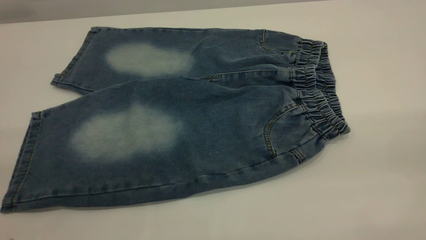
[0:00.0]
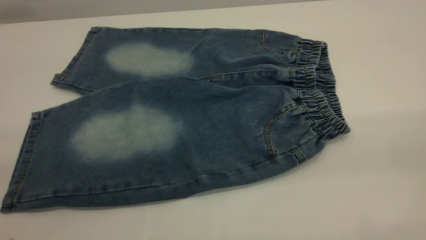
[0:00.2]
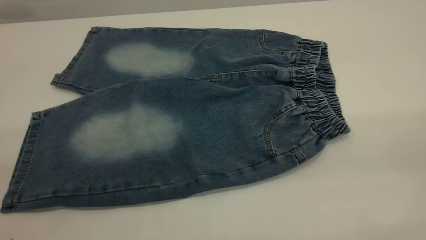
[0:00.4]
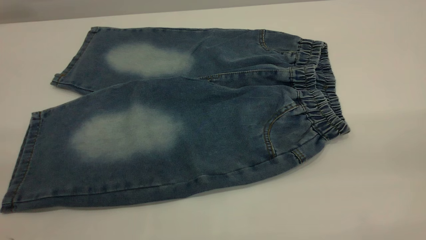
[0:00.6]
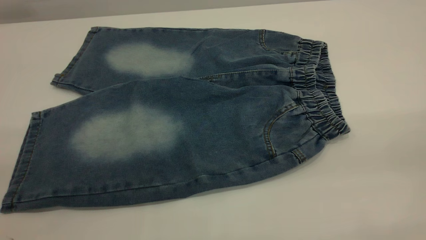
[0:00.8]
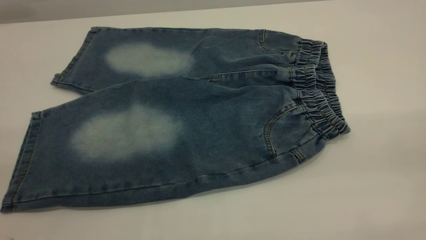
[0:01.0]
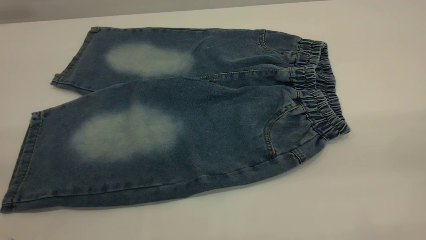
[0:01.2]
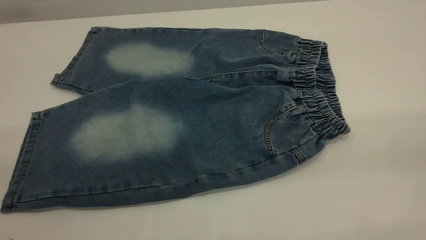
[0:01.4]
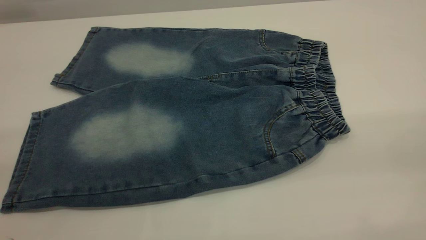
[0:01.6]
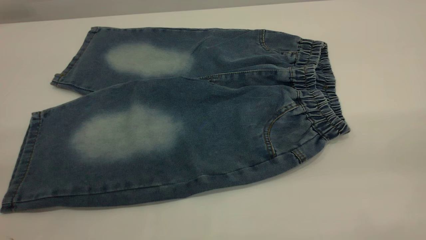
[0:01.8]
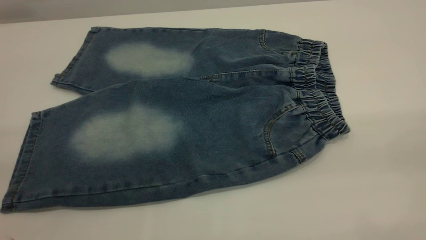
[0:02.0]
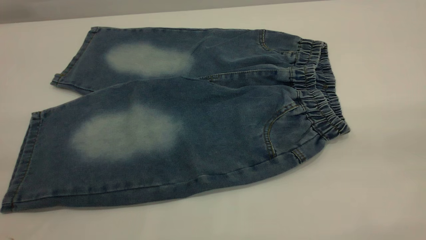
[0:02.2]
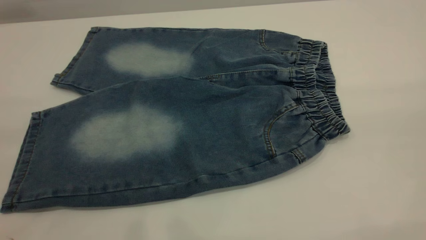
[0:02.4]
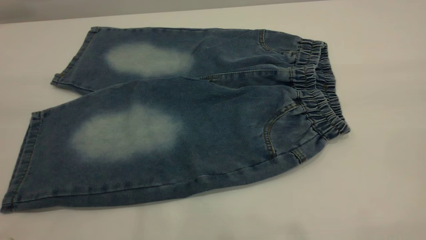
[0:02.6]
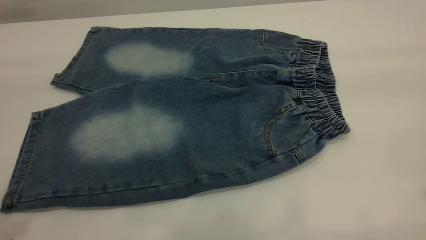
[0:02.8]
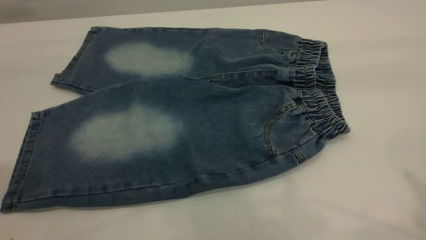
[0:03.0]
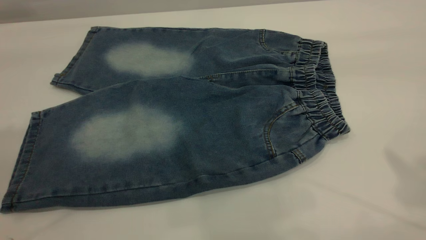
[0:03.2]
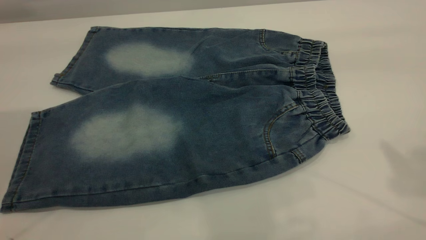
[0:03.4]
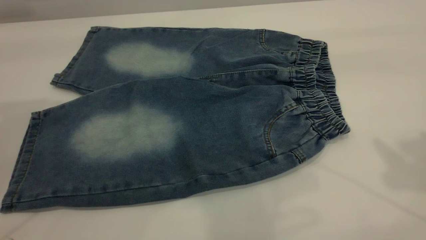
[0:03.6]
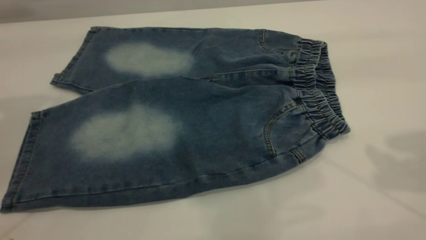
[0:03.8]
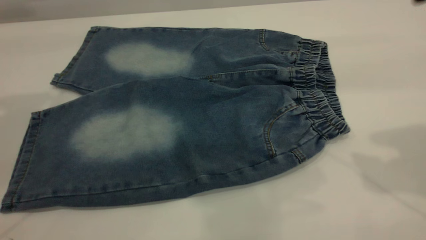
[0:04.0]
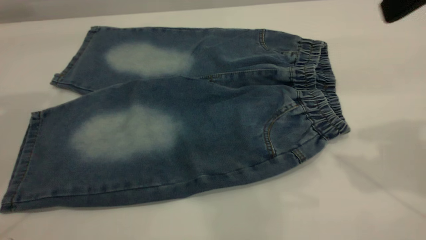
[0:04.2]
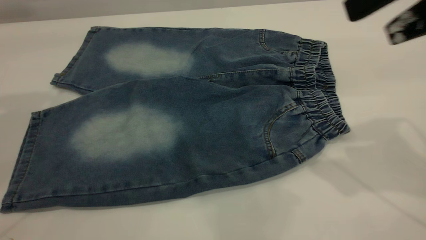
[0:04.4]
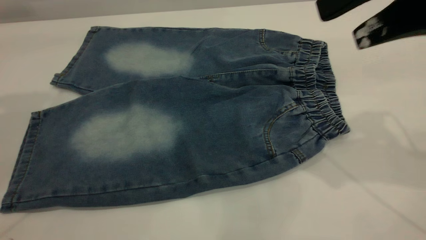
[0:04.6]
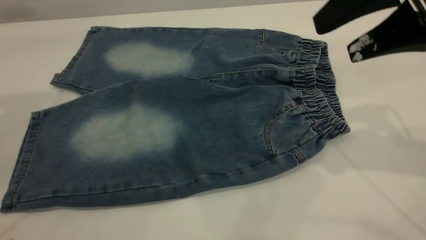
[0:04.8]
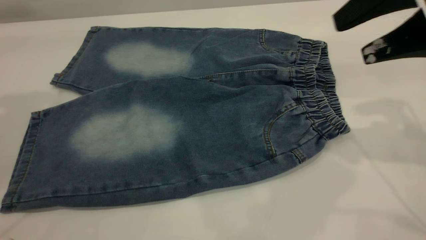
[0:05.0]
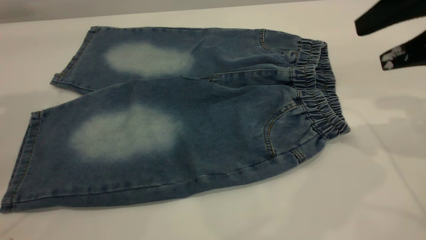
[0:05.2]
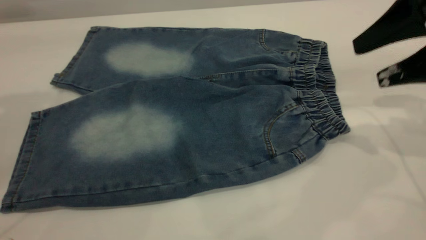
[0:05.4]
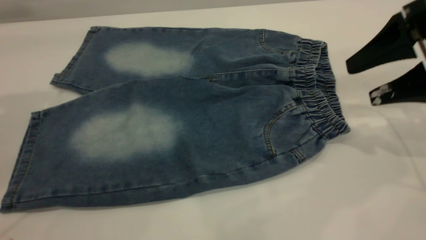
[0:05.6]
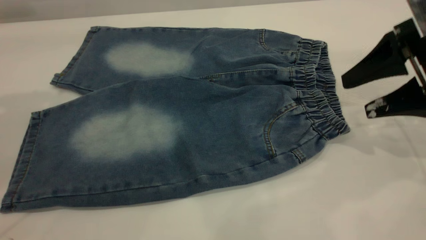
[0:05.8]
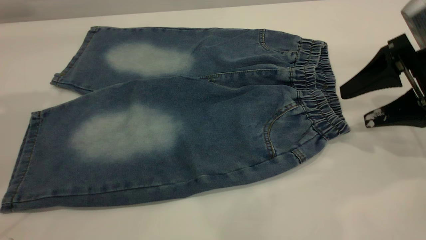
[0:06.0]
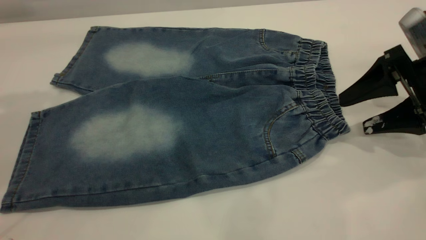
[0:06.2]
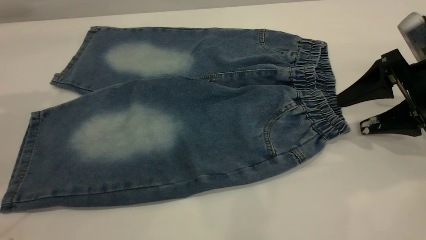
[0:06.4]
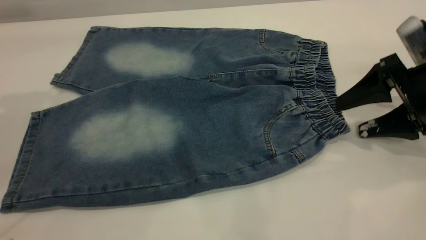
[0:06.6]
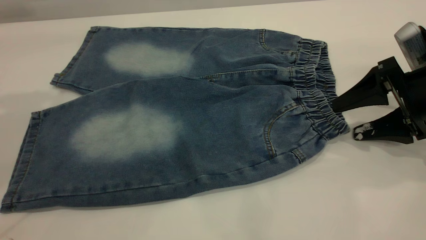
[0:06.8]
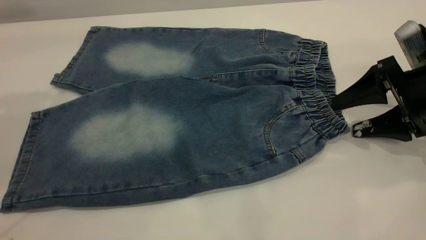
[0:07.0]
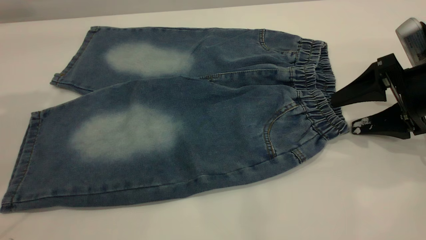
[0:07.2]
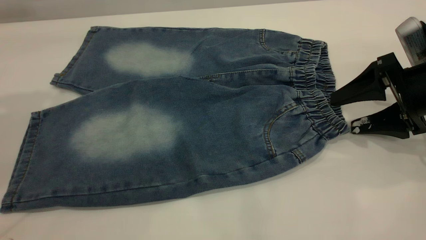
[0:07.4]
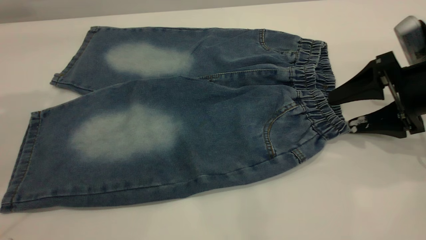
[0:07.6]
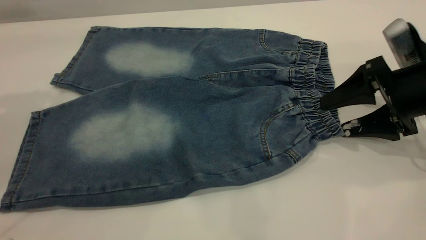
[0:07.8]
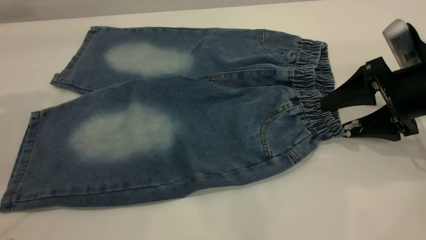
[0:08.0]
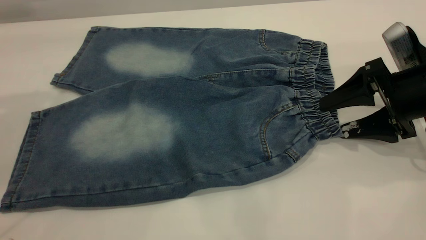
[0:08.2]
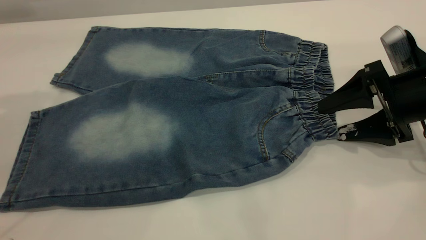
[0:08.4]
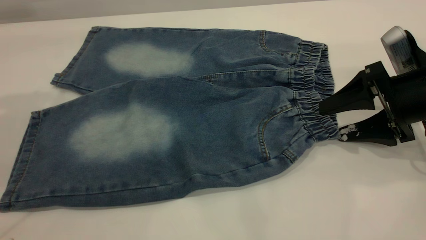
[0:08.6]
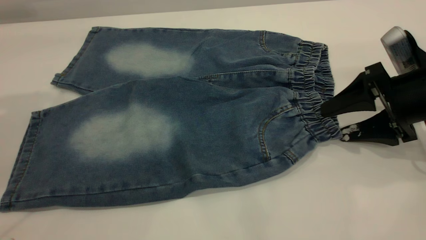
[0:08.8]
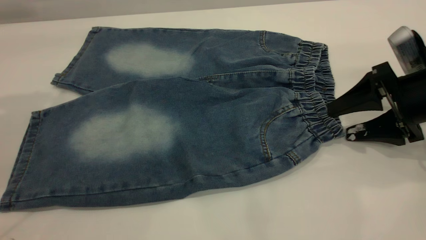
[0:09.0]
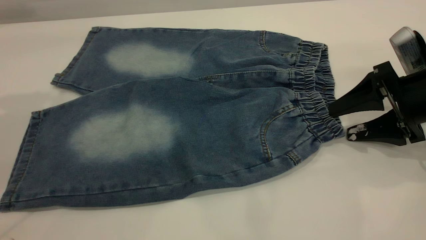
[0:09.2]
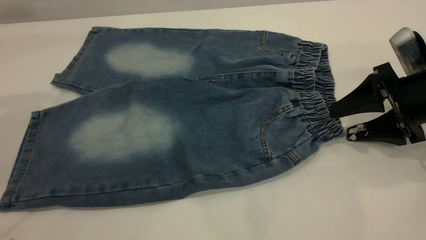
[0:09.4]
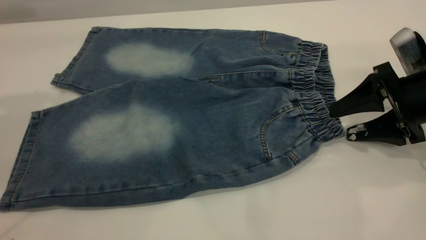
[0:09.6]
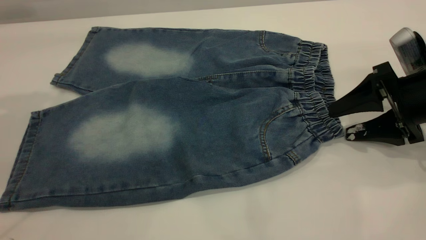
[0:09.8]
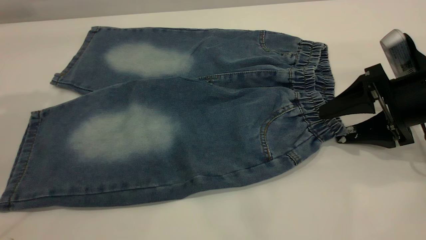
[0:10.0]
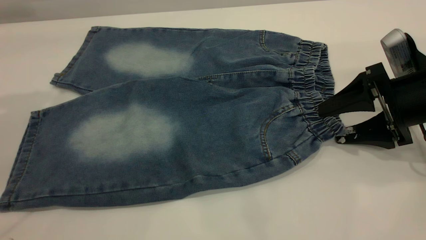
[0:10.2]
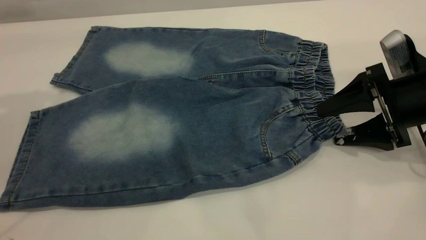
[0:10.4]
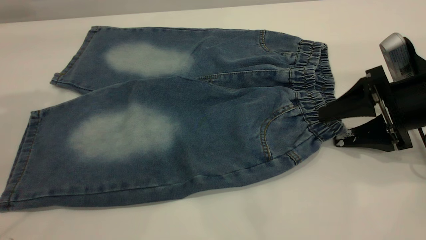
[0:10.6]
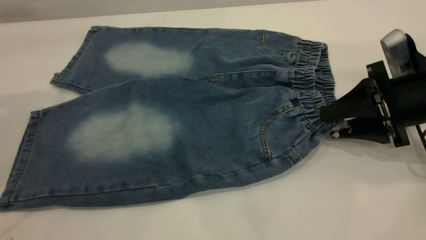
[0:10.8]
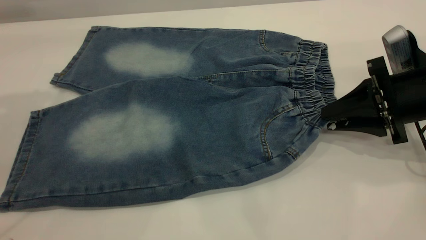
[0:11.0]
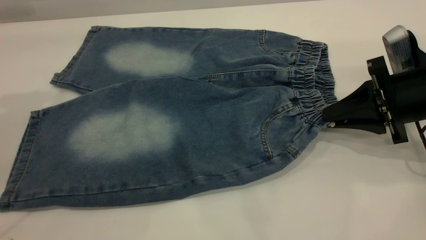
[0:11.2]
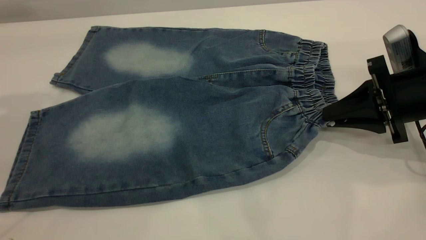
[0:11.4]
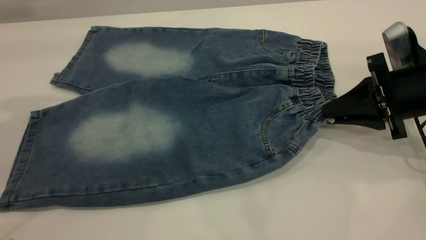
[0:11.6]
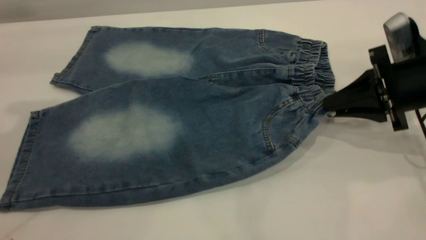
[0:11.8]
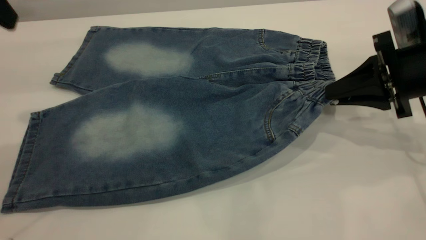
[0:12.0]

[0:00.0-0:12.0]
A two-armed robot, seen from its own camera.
0:00.0 to 0:01.6: The two grippers keep their place.
0:03.0 to 0:04.4: The right gripper heads downward, forward and to the left, covering roughly 15 cm.
0:04.4 to 0:06.0: The right gripper travels downward by about 15 cm.
0:06.0 to 0:10.4: The grippers move only a little.
0:10.4 to 0:12.0: The left gripper shifts roughly 5 cm downward; the right gripper closes.

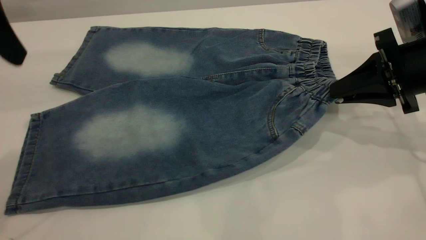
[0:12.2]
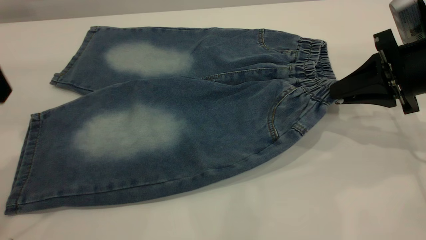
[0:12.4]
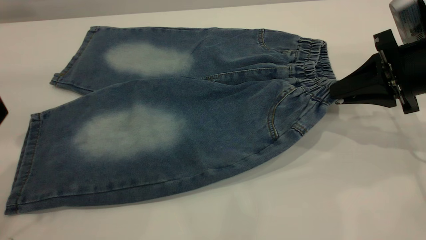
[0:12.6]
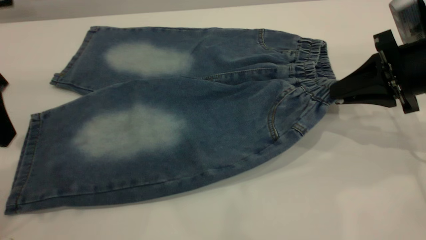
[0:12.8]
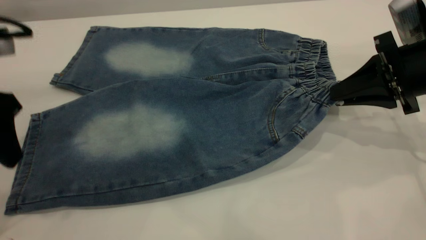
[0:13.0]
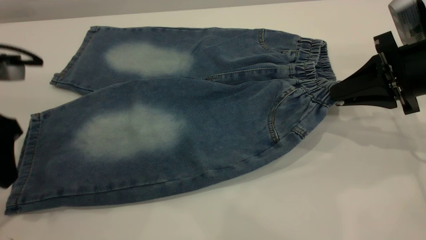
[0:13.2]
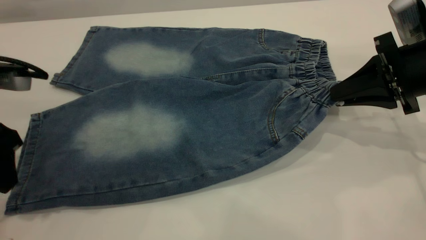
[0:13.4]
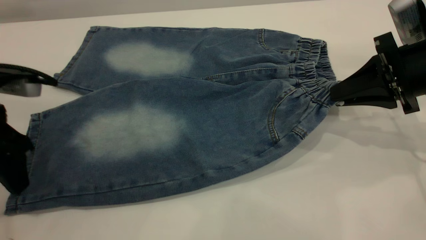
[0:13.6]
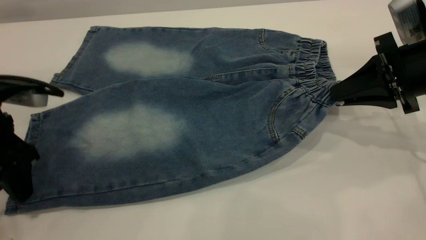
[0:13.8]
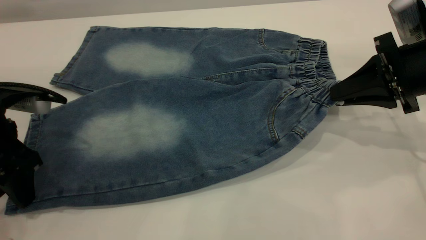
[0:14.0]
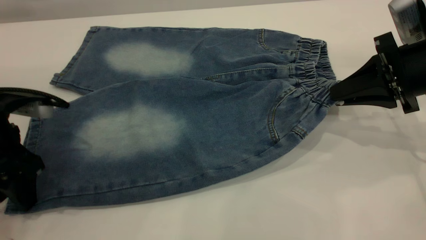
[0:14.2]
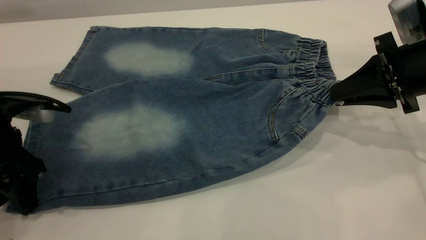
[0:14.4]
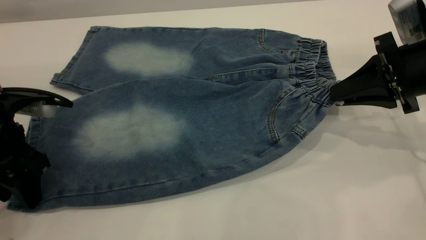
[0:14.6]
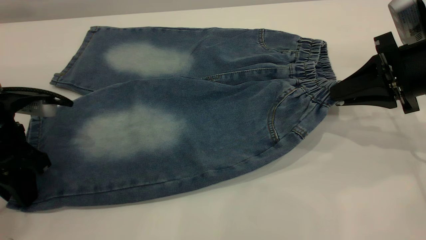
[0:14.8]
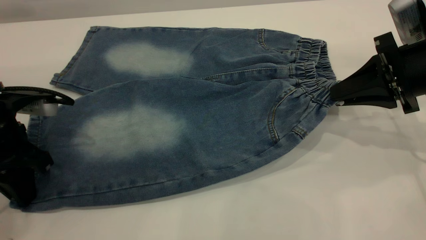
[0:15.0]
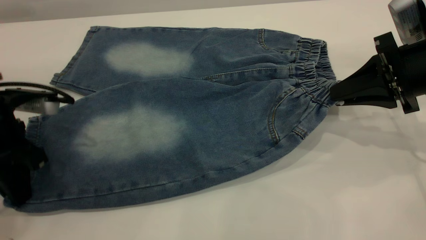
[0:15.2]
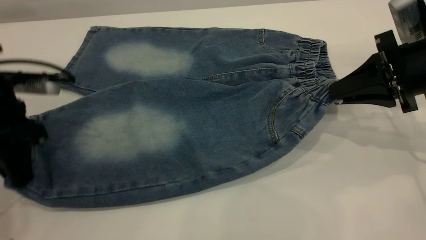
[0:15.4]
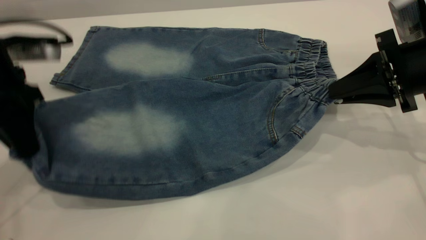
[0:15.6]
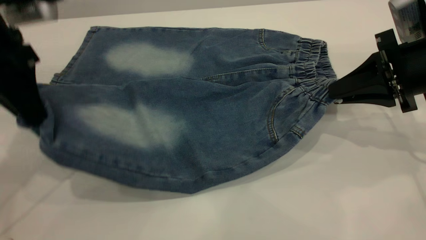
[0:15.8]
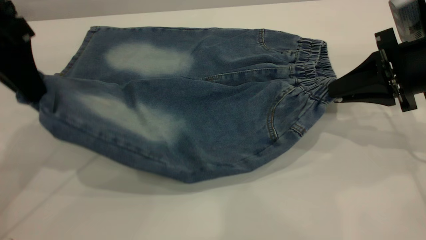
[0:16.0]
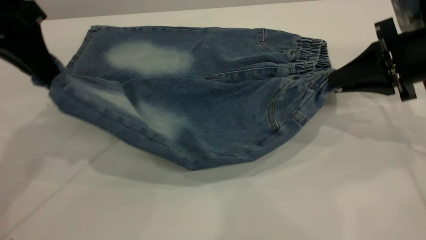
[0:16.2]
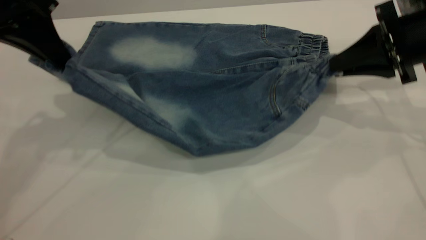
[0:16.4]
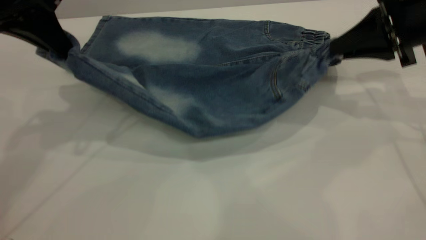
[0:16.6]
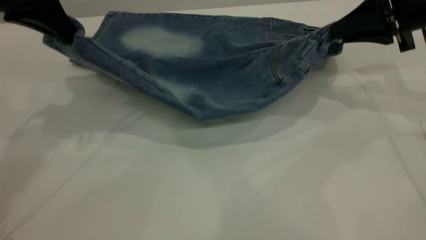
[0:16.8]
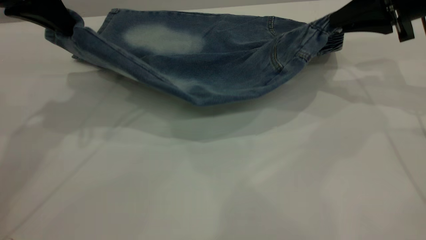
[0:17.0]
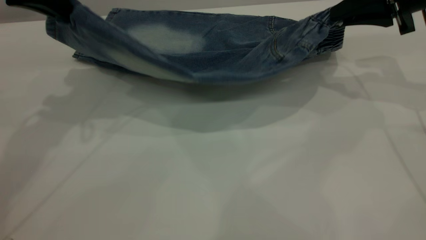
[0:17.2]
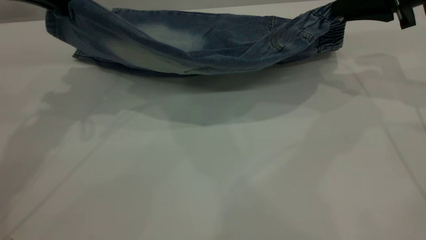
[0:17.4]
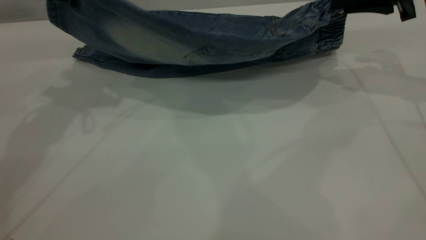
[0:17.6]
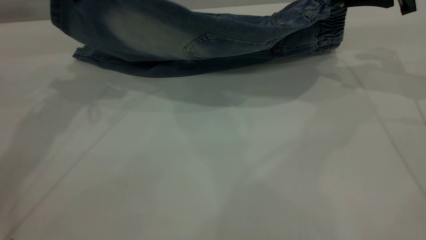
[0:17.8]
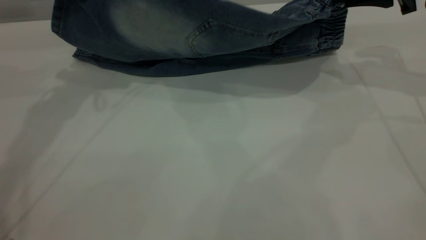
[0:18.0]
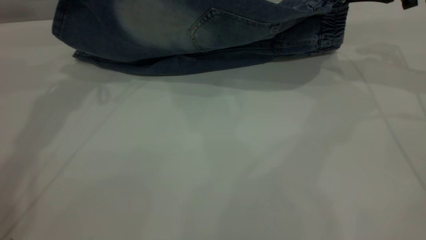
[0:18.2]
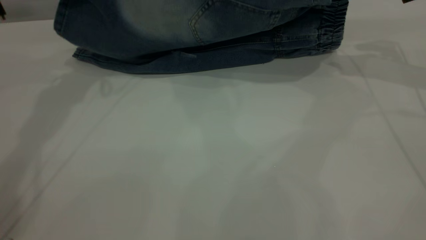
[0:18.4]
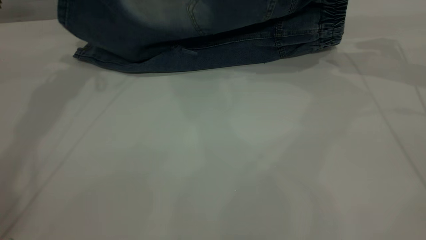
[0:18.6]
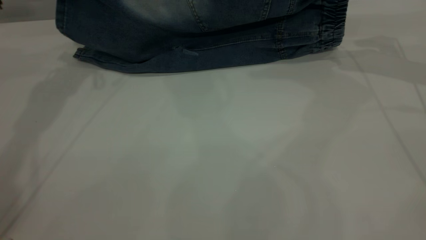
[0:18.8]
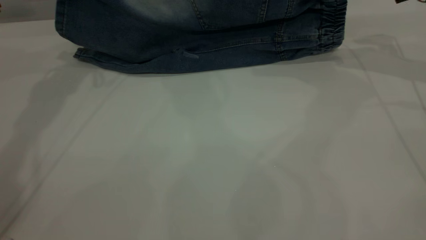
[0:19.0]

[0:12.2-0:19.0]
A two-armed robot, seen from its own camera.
0:12.2 to 0:13.6: The left gripper travels downward by about 15 cm.
0:13.6 to 0:15.0: The left gripper closes up.
0:15.0 to 0:16.2: The left gripper is displaced upward and forward by about 15 cm.
0:16.2 to 0:17.6: The left gripper moves forward, some 5 cm. The right gripper is displaced forward and upward by approximately 10 cm.
0:17.6 to 0:19.0: The left gripper shifts some 10 cm forward, while the right gripper changes place by roughly 5 cm.
